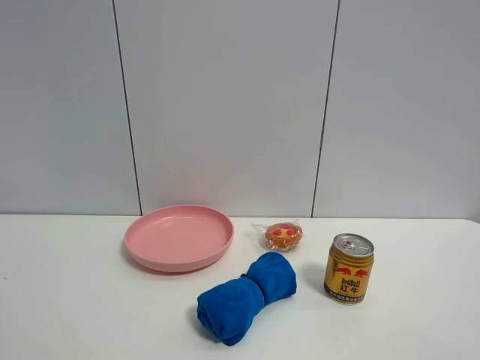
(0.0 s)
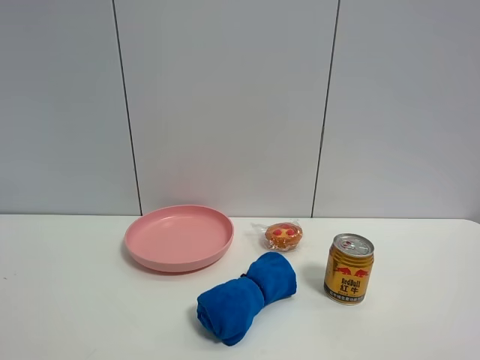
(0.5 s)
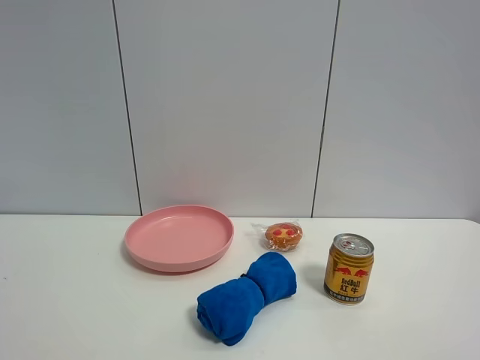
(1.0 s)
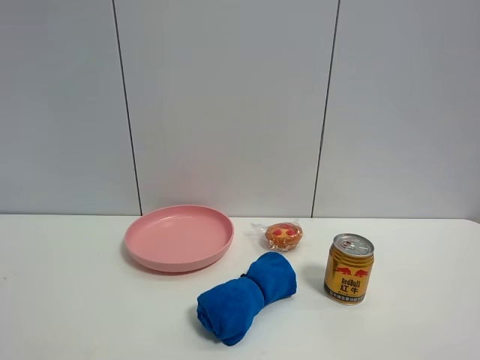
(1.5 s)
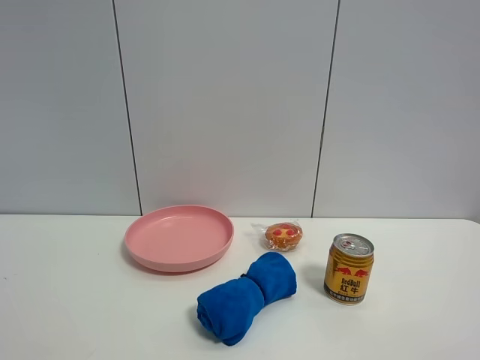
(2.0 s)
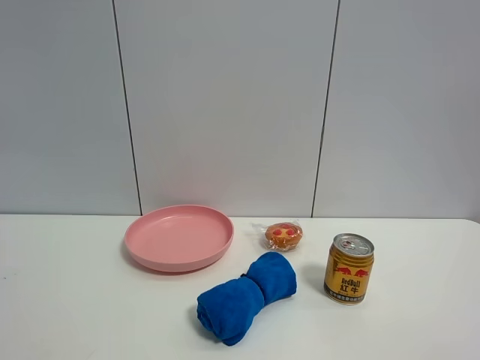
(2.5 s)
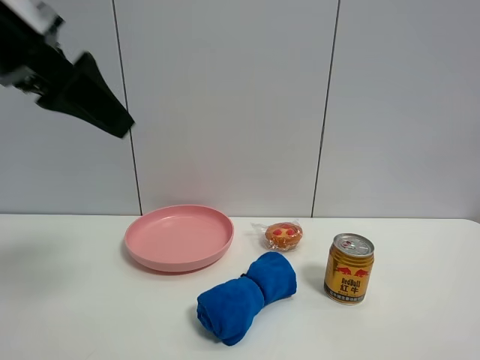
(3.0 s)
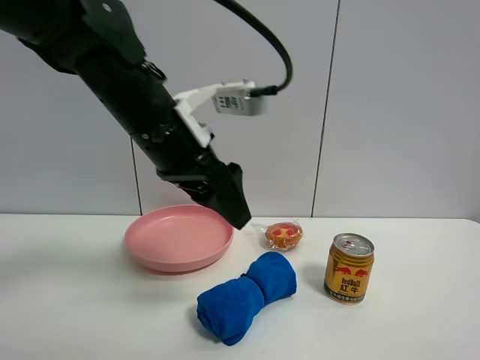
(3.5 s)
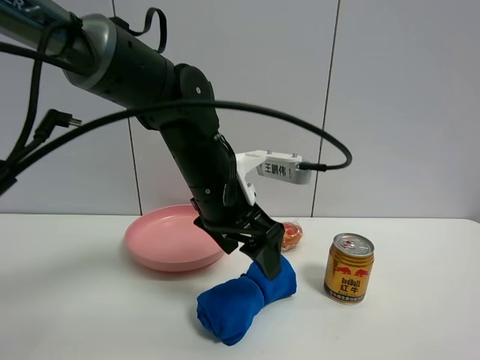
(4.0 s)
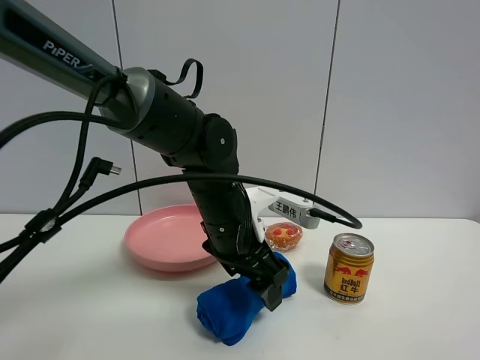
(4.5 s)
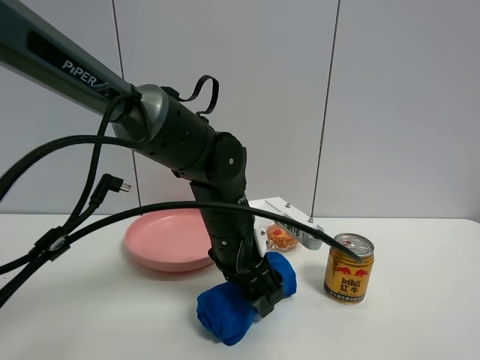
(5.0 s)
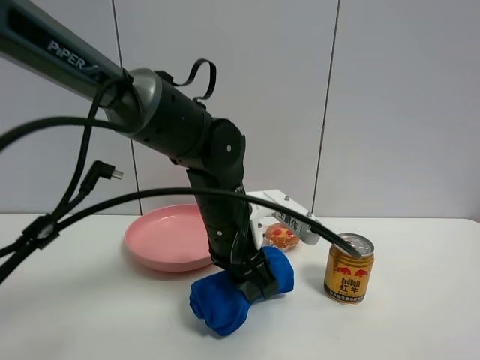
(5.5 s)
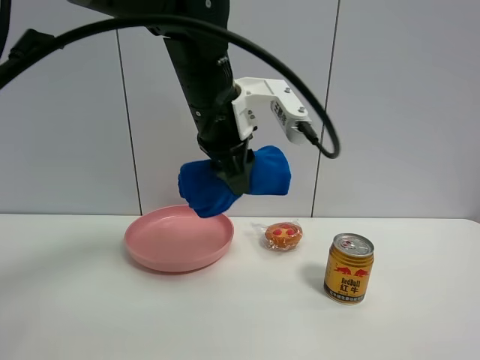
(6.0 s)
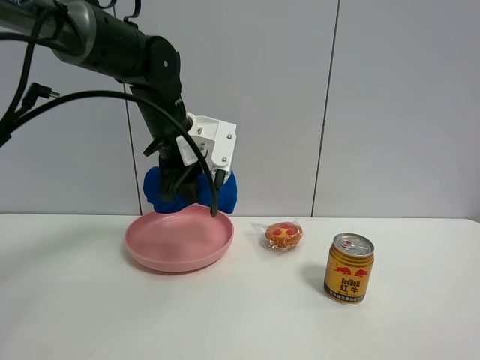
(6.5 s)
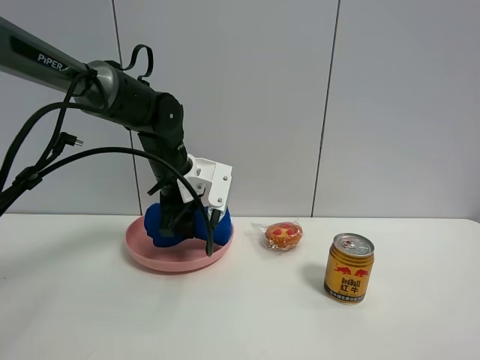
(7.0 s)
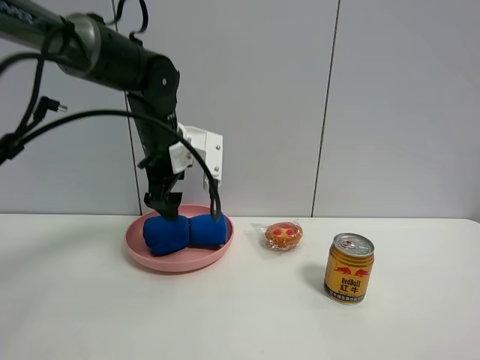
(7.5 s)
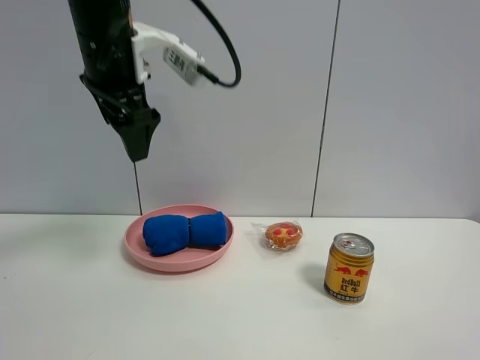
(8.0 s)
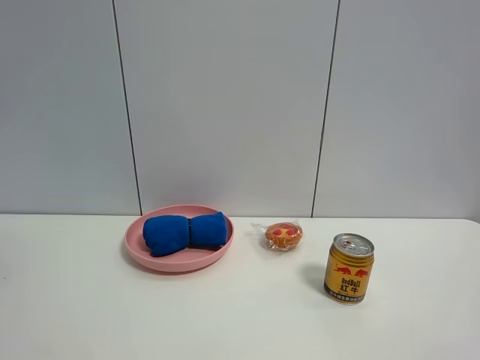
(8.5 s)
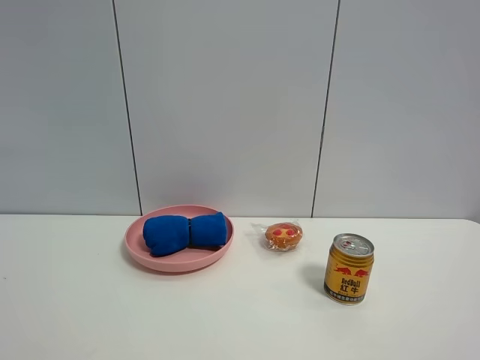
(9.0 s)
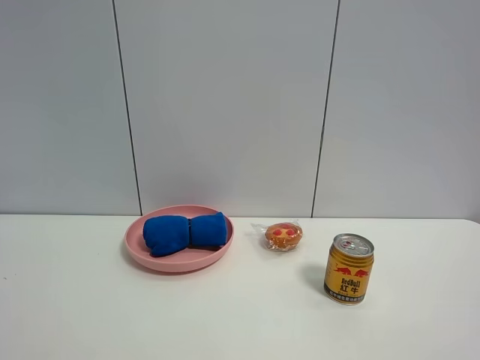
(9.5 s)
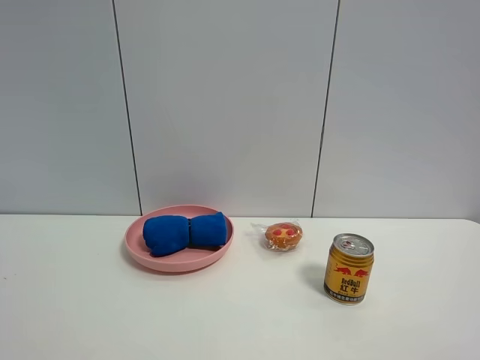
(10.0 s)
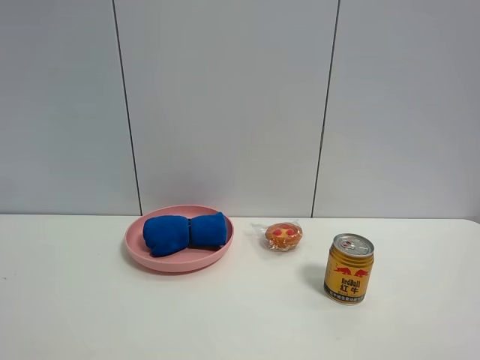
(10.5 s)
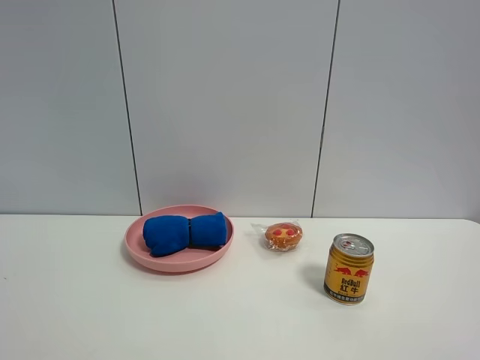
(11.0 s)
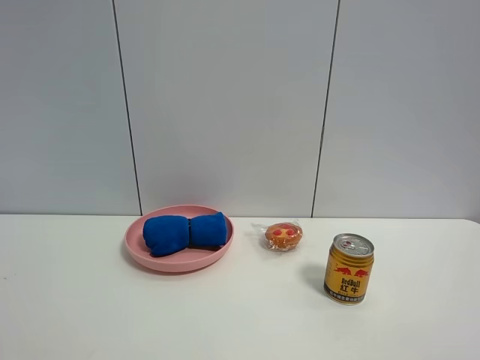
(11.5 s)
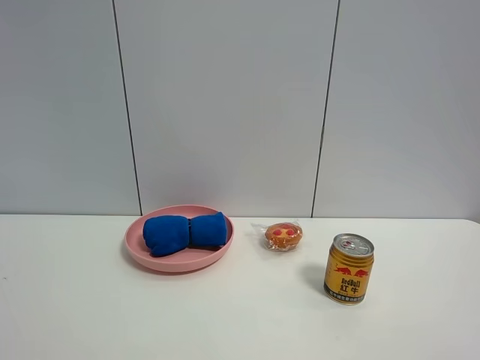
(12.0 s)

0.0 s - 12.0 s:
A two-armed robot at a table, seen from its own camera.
Task of the whole recording: the gripper move the object.
Step, 0.0 s - 5.0 s: Grasp the pink towel with the left gripper.
Step, 5.5 s - 7.0 s: Place the pink towel on the table with the left gripper.
2.0 s - 4.0 s: The left gripper travels forward, to the right and downward by about 50 cm.
4.0 s - 6.0 s: The left gripper is displaced upward by roughly 10 cm, and closes its fingers.
6.0 s - 8.0 s: The left gripper is displaced to the left and upward by about 15 cm, and opens.
8.0 s - 10.0 s: The left gripper moves backward and to the left, about 40 cm.
10.0 s - 12.0 s: Neither gripper changes place.
